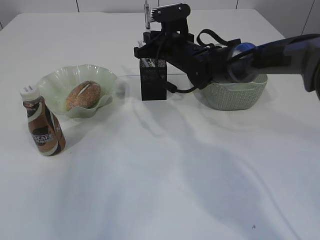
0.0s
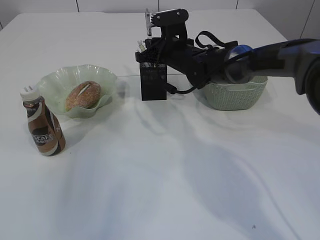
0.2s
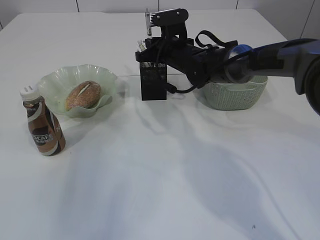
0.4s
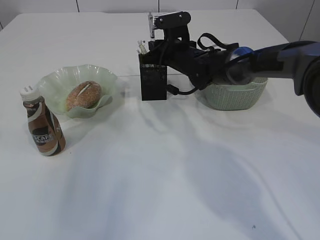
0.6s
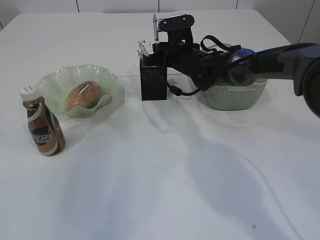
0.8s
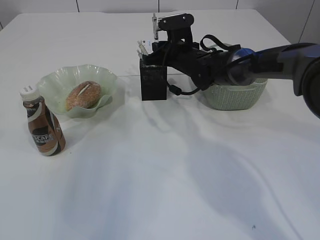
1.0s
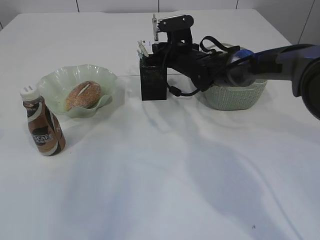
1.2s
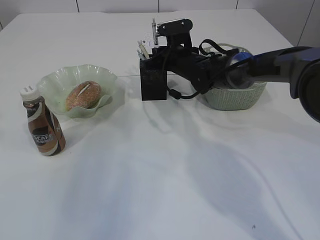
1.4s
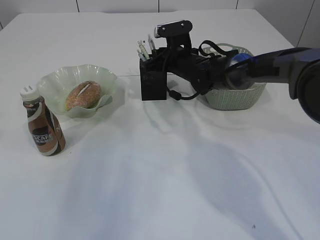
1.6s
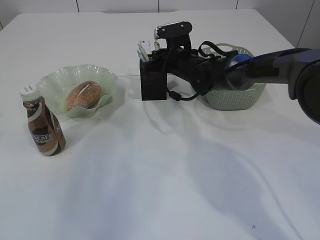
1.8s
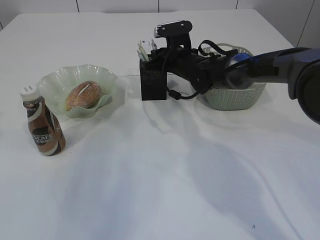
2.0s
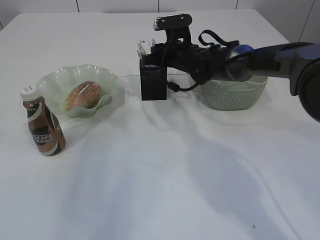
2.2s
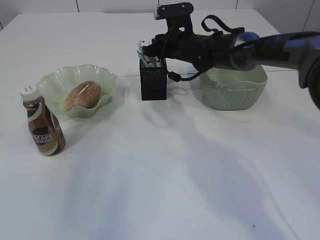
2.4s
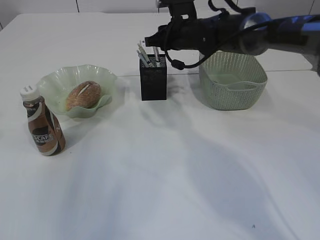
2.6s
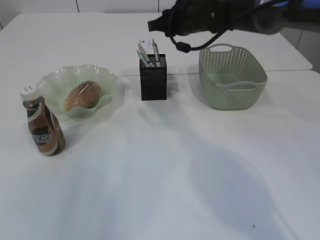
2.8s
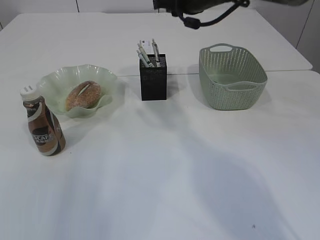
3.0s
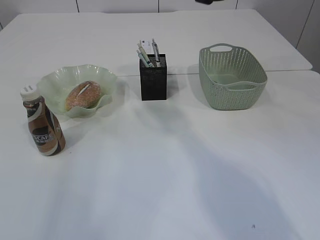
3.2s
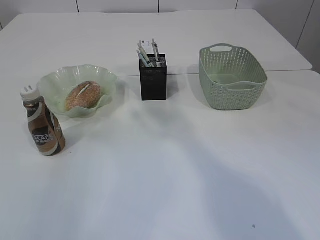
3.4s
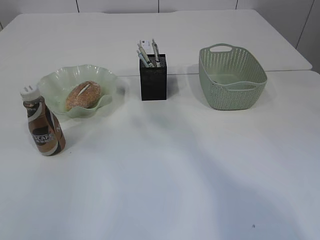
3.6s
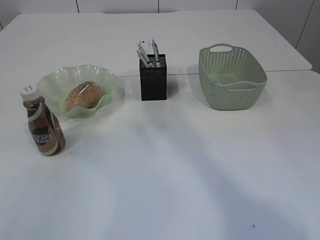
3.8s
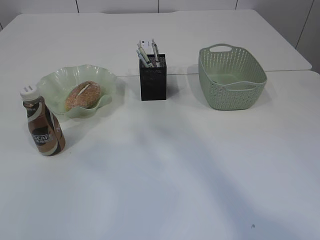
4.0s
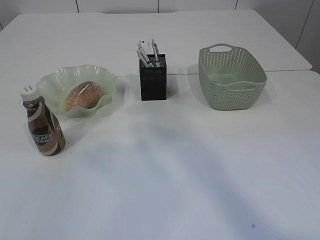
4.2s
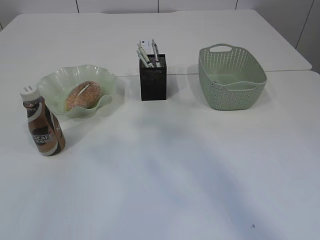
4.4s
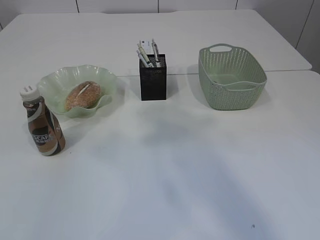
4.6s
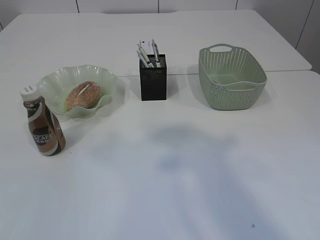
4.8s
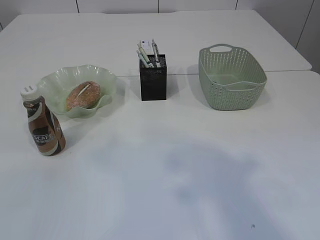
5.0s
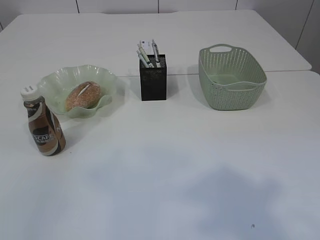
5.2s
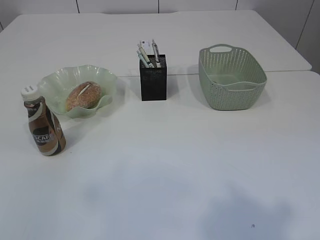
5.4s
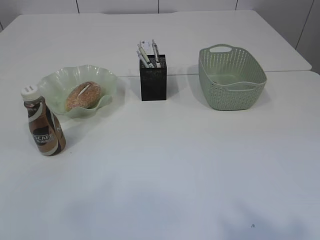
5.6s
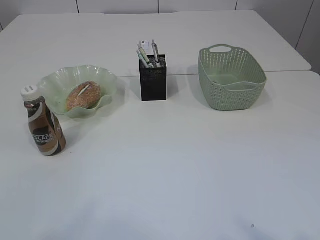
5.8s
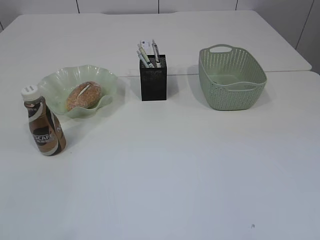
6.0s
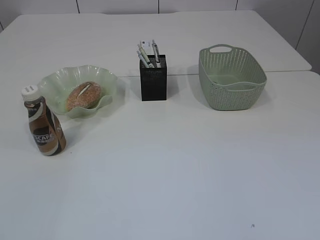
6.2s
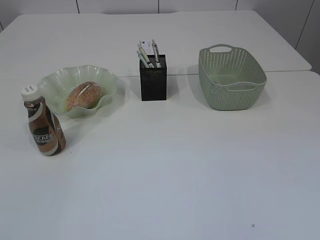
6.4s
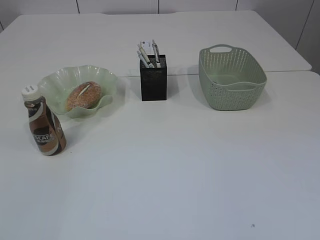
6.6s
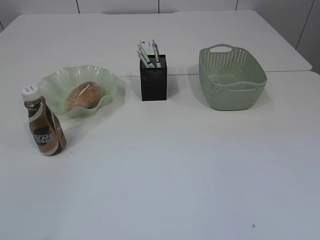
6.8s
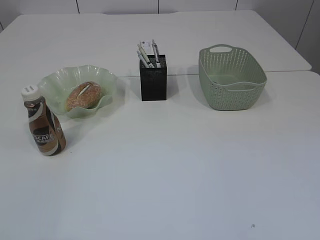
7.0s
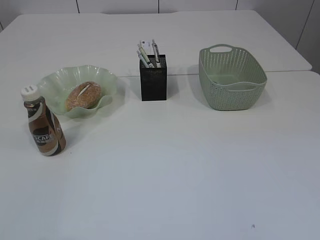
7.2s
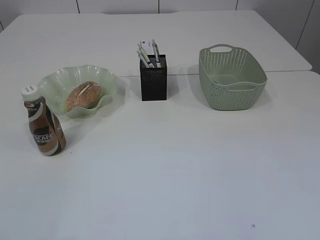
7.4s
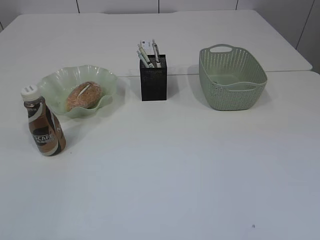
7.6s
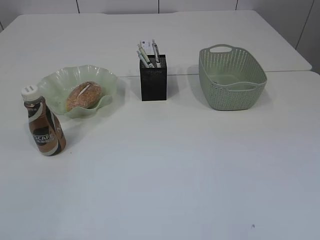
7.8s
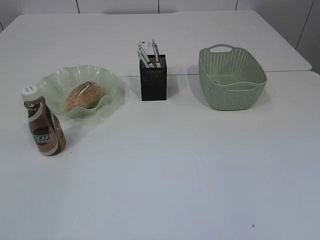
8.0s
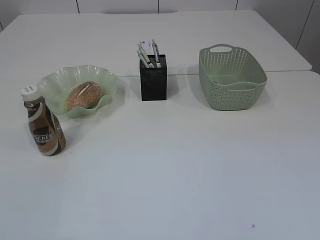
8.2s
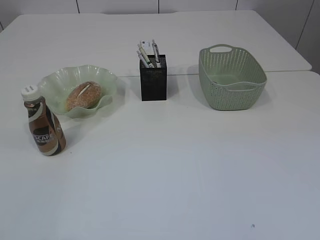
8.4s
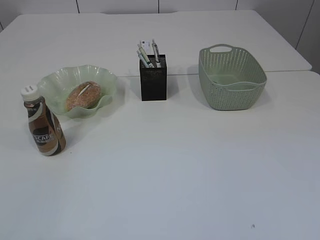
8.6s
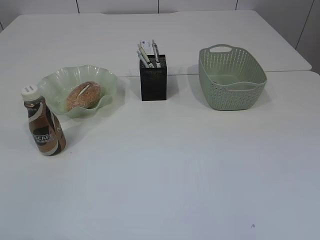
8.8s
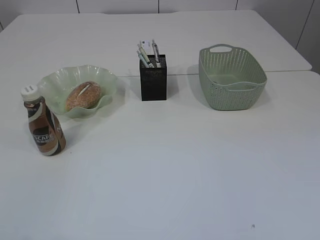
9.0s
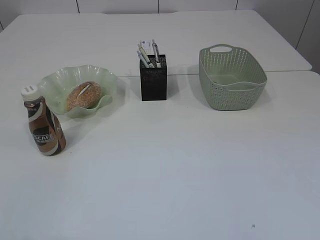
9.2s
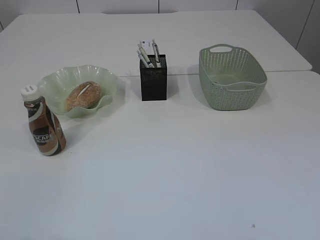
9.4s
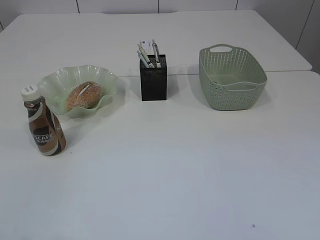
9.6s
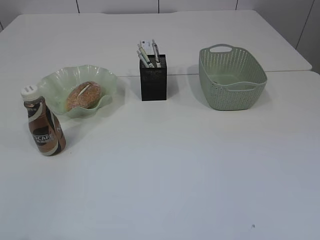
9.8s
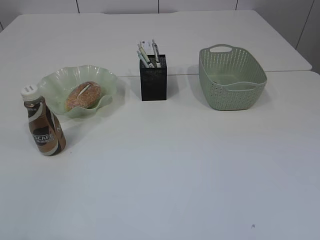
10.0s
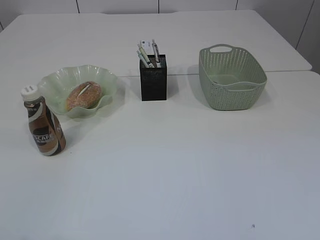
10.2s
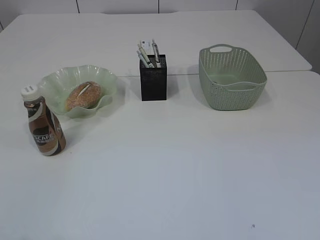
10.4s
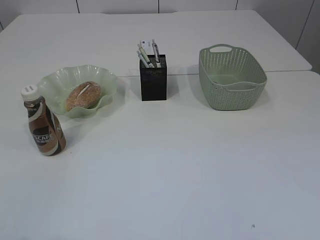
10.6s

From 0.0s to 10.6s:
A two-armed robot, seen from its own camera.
Step, from 0.0s to 2.8s: Place the pen into the pen holder.
From 0.0s to 1.6s: The grippers make only small movements.
From 1.6s to 3.0s: The right gripper moves upward, about 15 cm.
From 3.0s to 4.6s: The right gripper moves backward and upward, about 35 cm. Meanwhile the left gripper is displaced backward and upward by approximately 10 cm, and opens its fingers.
From 4.6s to 6.0s: Both grippers travel together backward and downward, some 20 cm.
From 9.0s to 10.6s: The two grippers keep their place.
